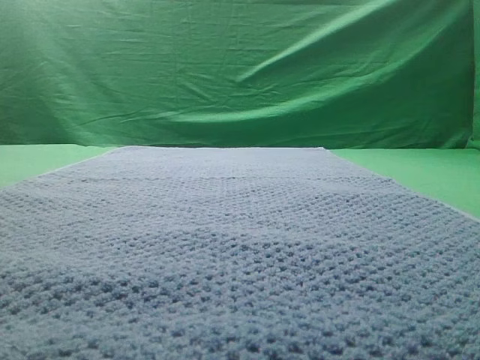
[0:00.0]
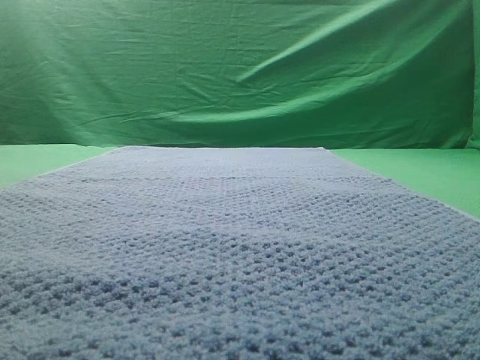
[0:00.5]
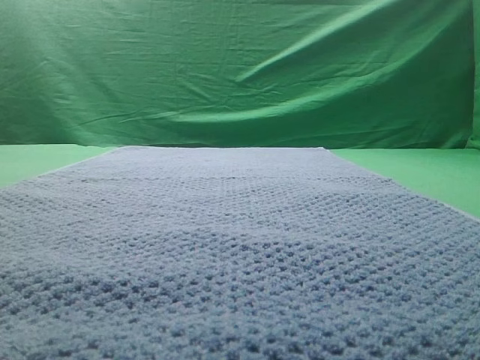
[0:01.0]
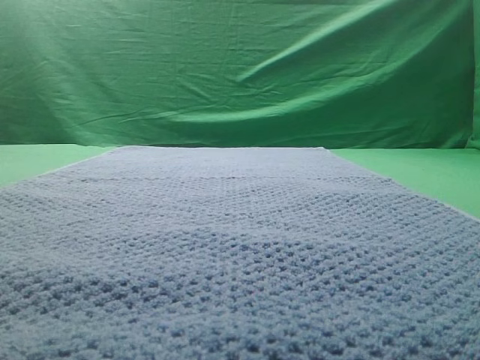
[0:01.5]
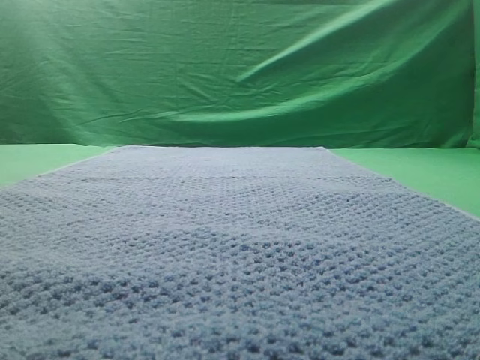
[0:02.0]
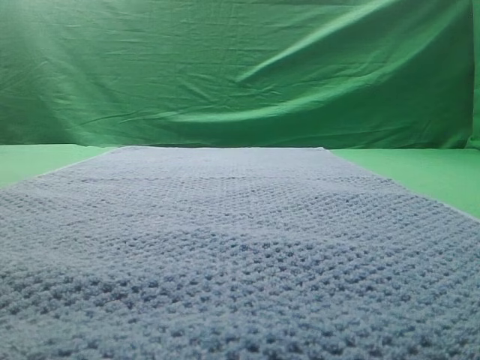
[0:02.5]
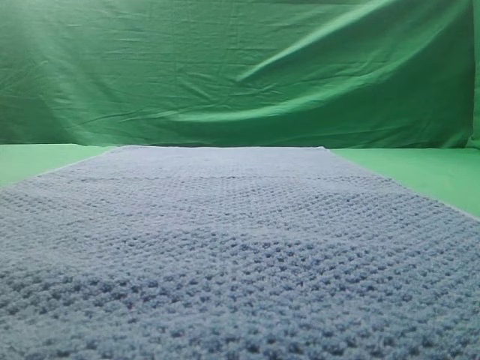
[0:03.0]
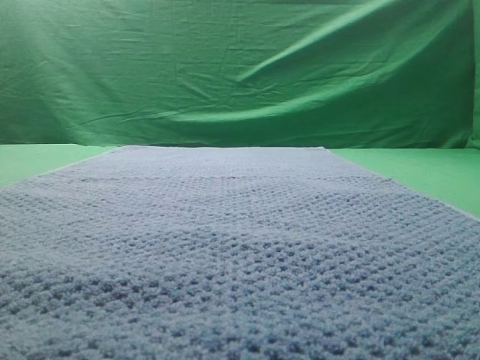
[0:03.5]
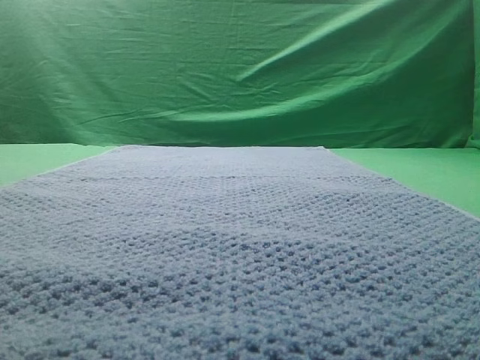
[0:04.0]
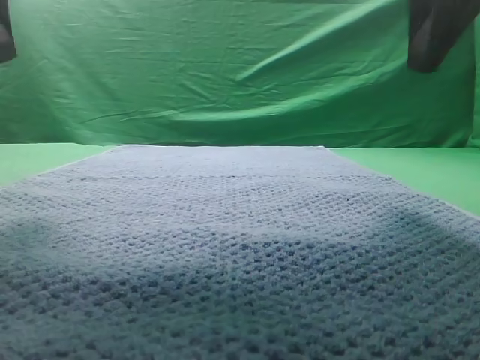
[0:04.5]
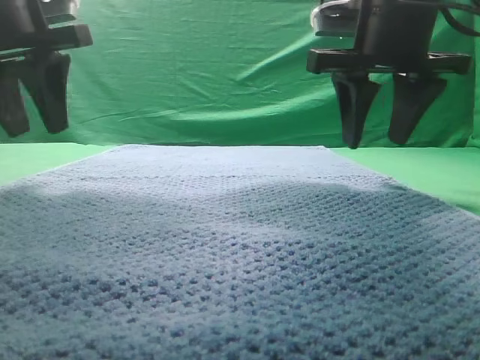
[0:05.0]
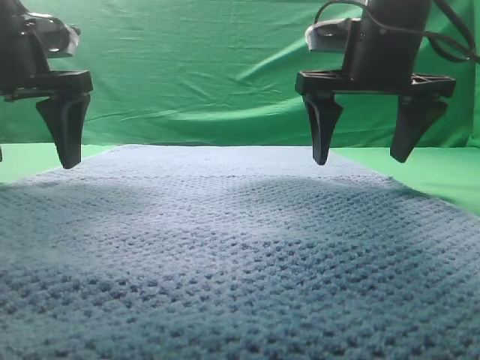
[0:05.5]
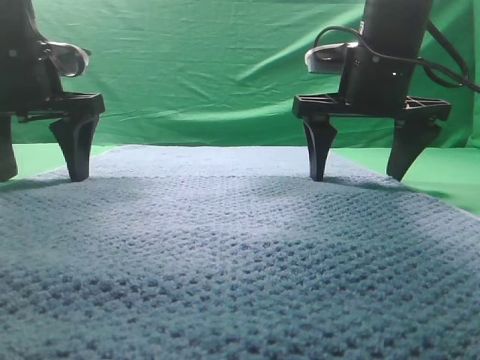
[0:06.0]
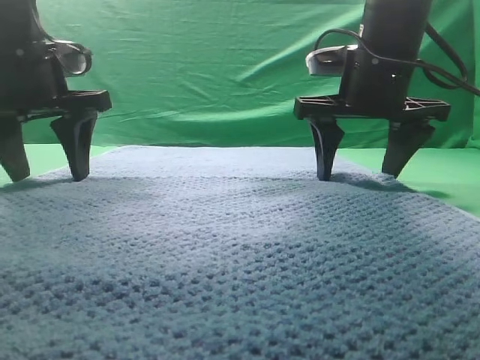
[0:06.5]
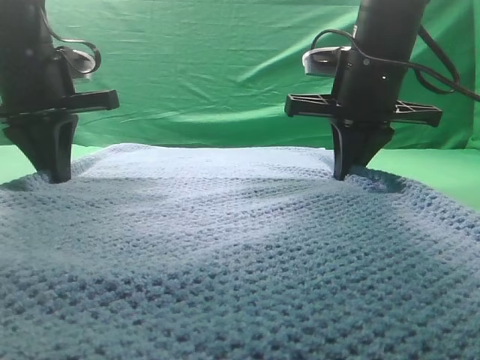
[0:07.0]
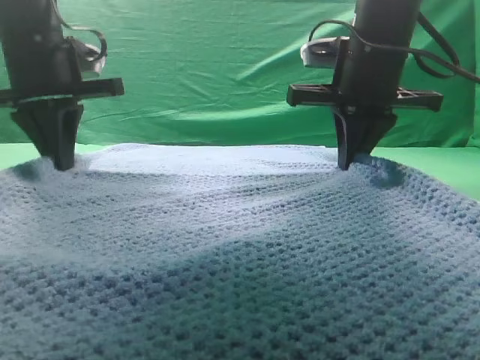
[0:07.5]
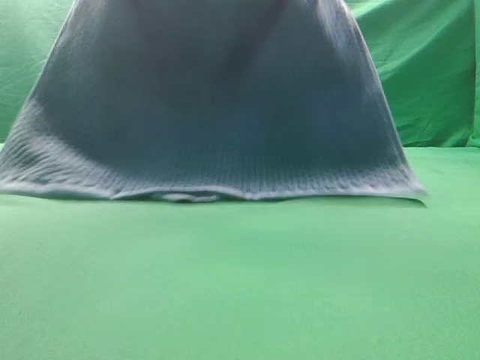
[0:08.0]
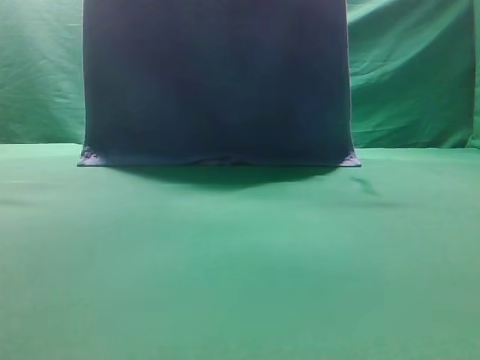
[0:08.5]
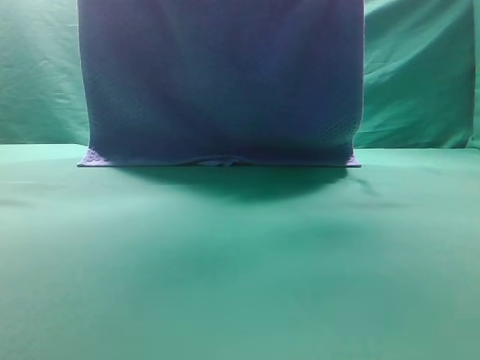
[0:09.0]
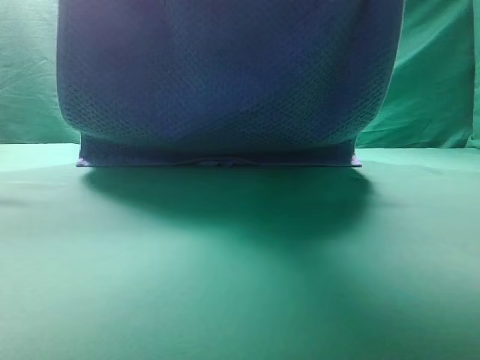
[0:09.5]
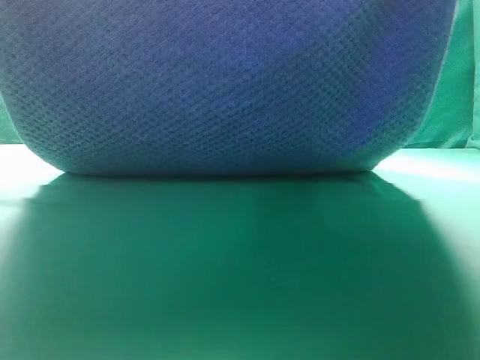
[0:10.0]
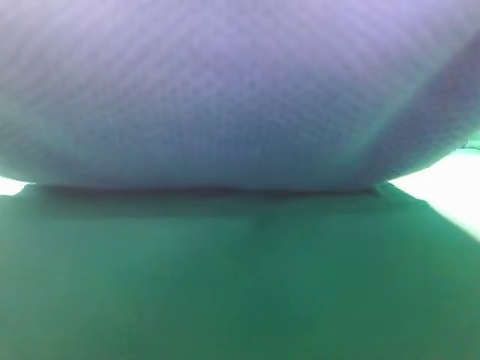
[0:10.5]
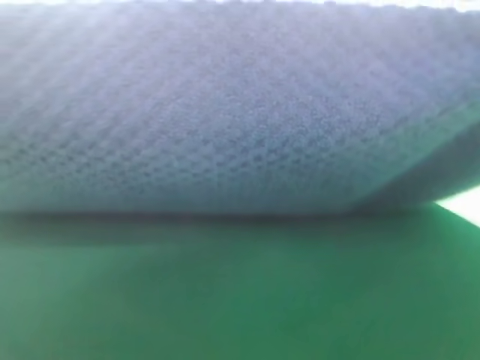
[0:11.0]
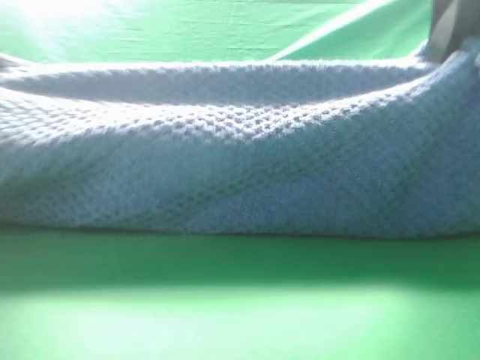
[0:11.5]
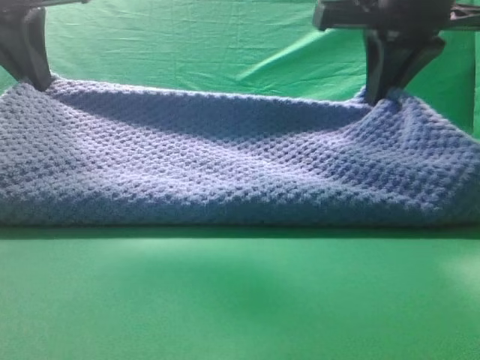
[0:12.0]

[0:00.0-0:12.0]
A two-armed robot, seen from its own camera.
Task of the whole recording: fold the towel on the table twice.
Step, 0:00.0 to 0:08.0: pick up the towel with two arm.

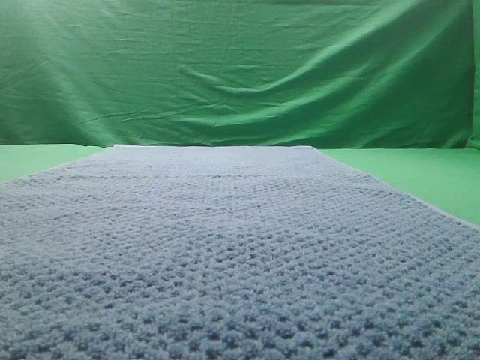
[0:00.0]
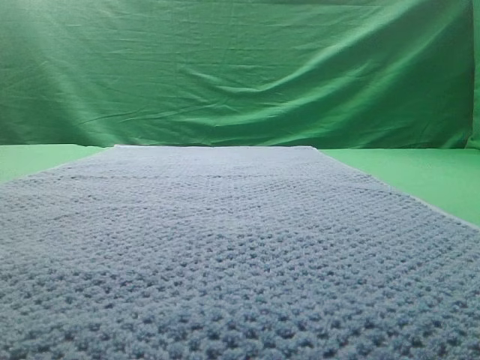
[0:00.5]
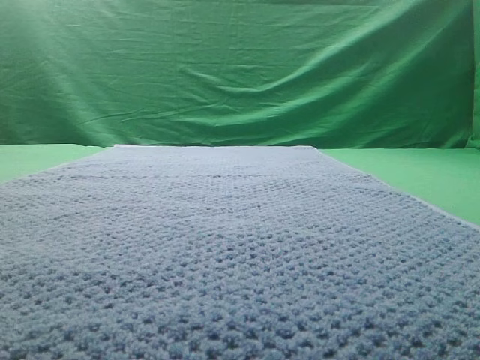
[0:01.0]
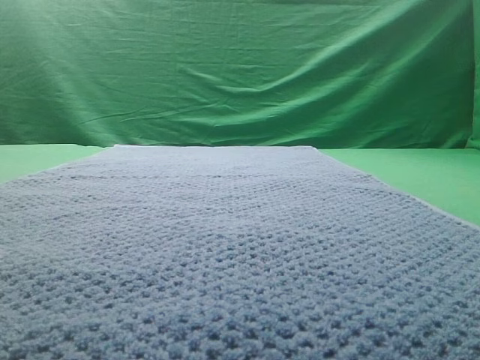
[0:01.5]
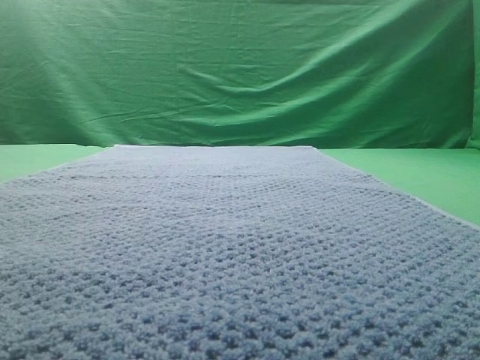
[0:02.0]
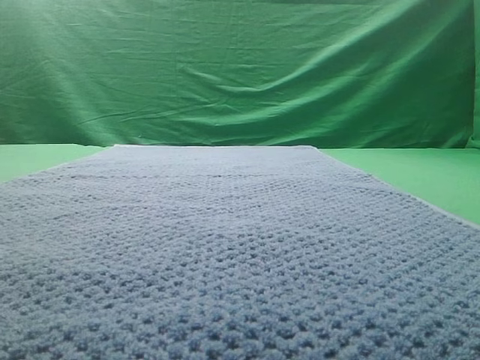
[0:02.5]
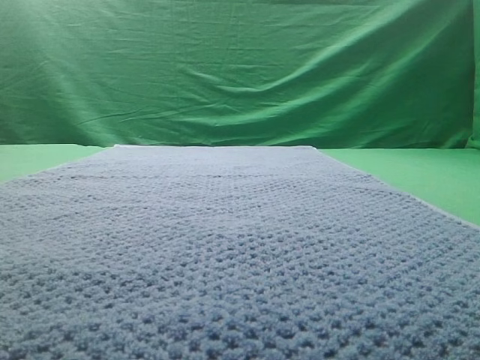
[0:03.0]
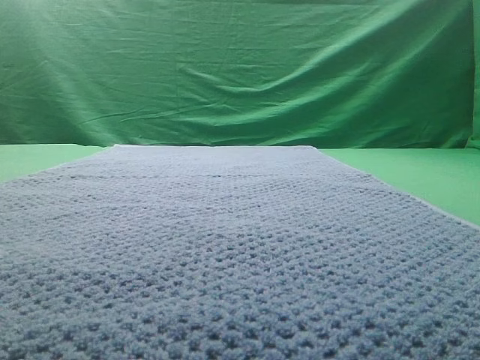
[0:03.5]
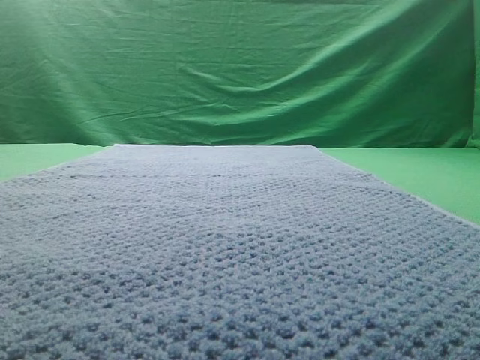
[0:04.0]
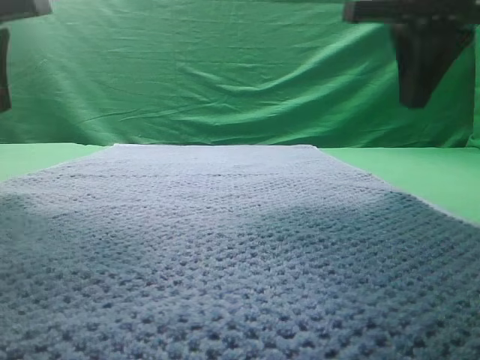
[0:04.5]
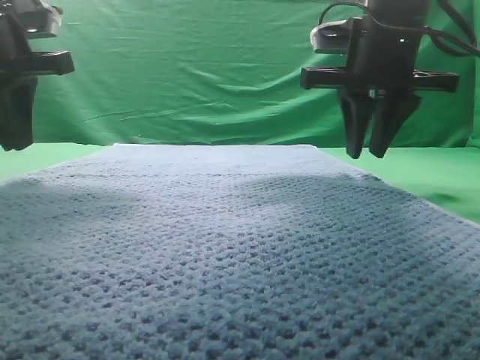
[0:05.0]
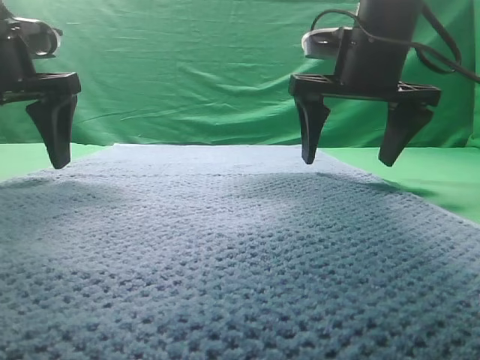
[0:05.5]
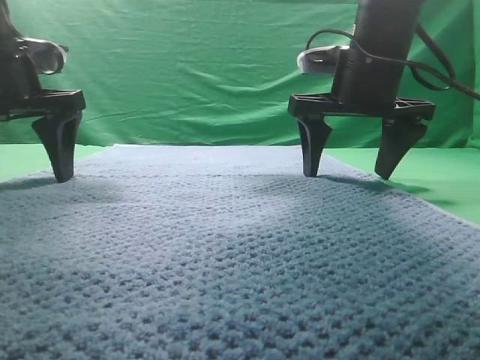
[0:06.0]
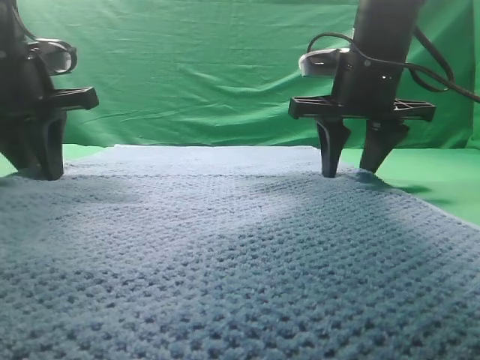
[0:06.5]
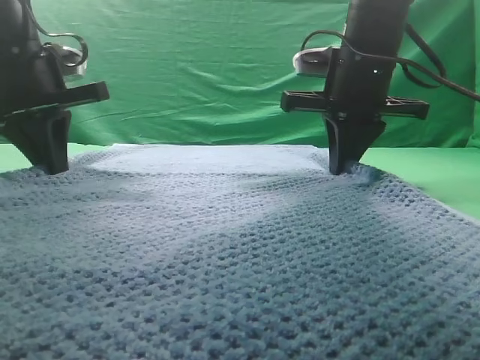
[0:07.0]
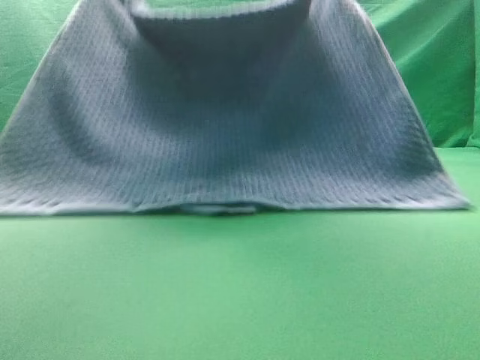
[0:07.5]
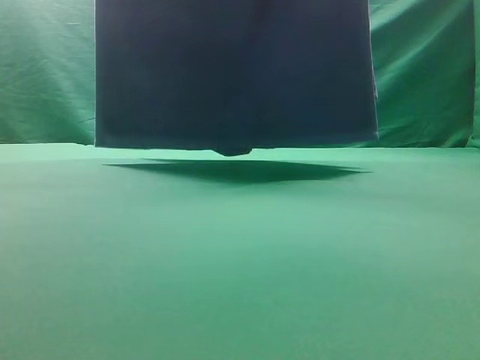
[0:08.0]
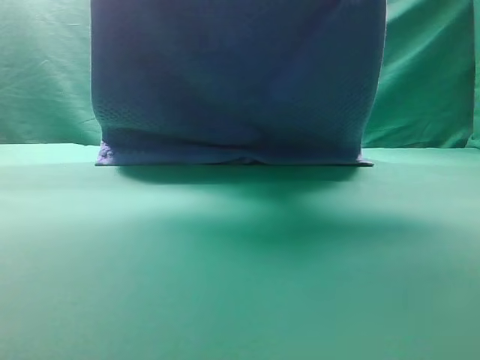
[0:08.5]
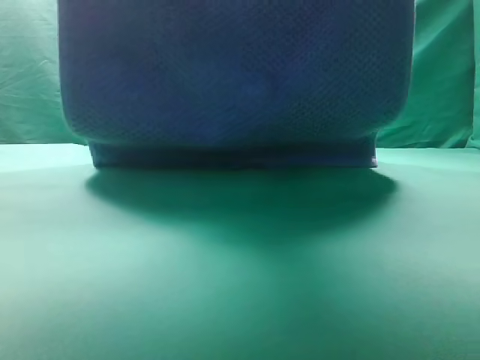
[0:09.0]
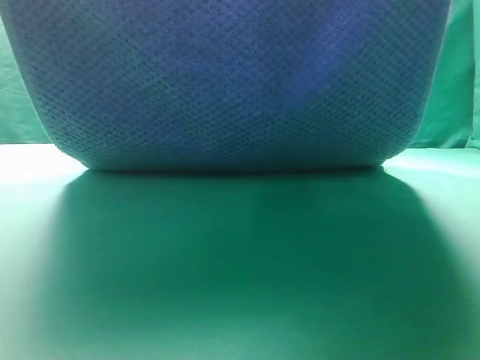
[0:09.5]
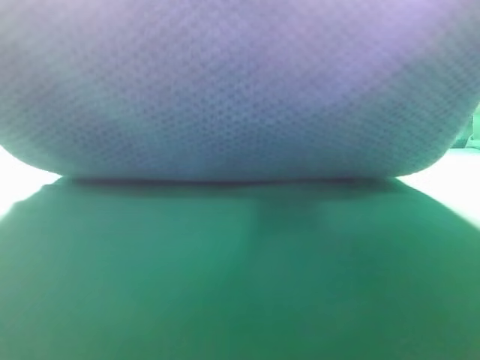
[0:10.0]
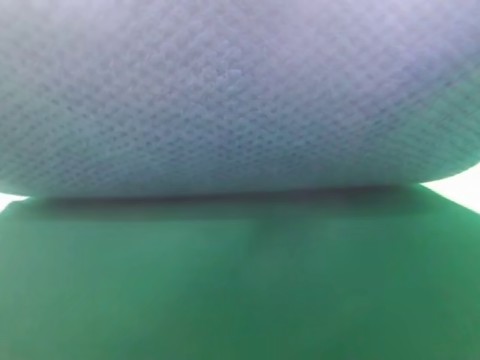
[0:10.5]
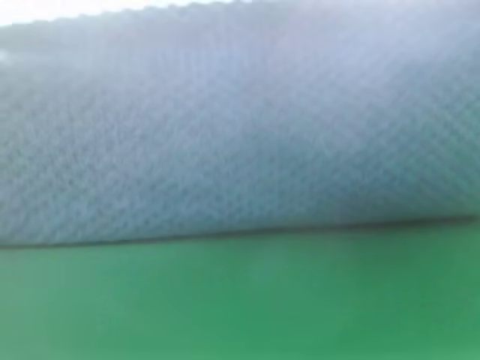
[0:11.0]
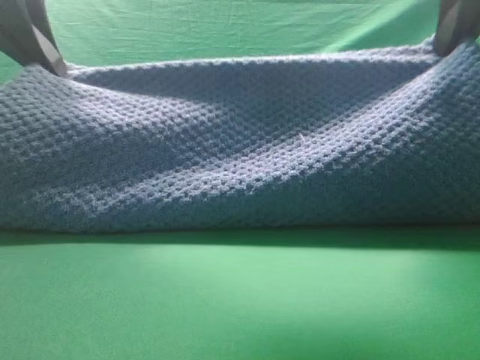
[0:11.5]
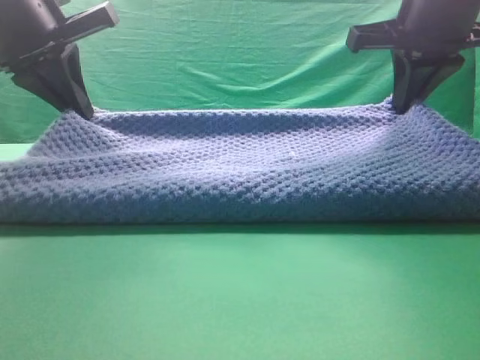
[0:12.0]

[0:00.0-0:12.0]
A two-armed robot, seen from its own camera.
Task of the whole recording: fold the towel on the table twice.
Step, 0:00.0 to 0:07.5: pick up the towel with two arm.

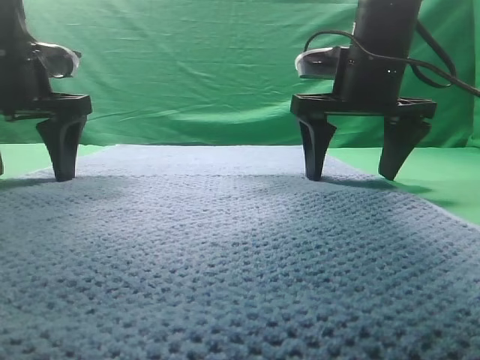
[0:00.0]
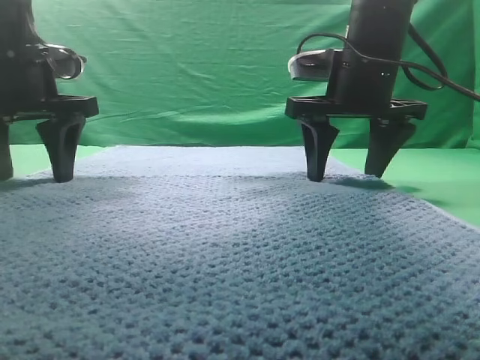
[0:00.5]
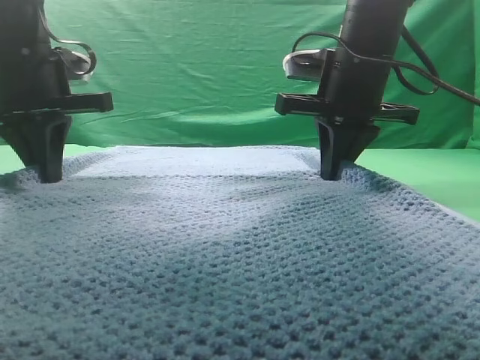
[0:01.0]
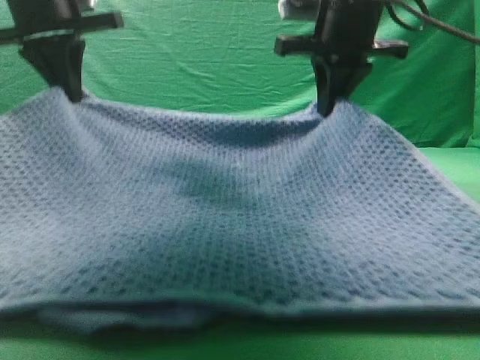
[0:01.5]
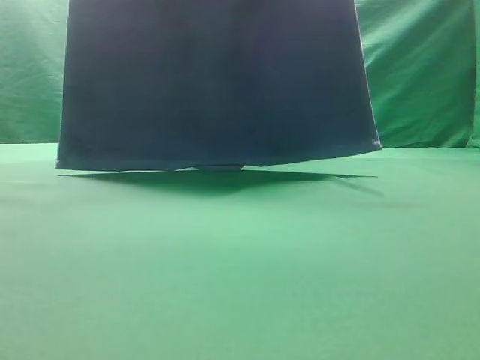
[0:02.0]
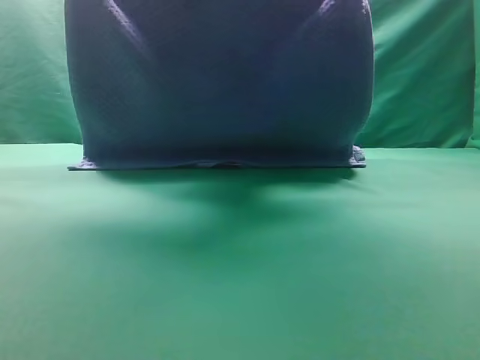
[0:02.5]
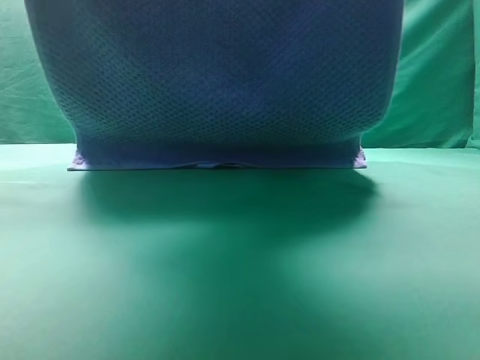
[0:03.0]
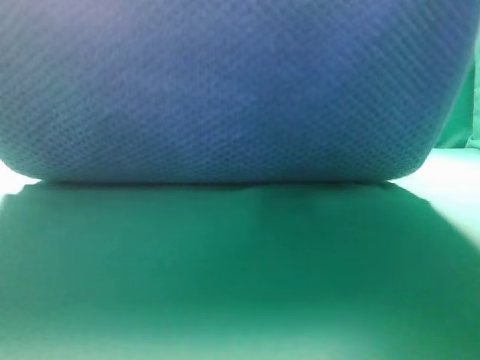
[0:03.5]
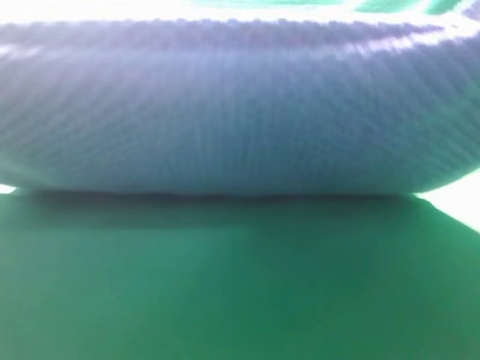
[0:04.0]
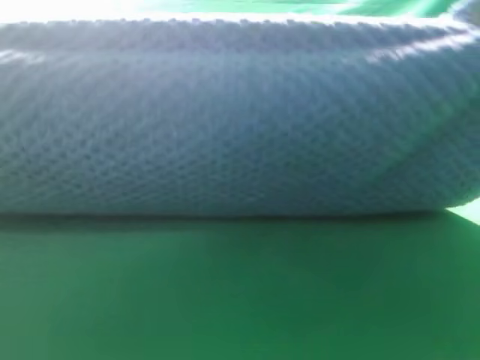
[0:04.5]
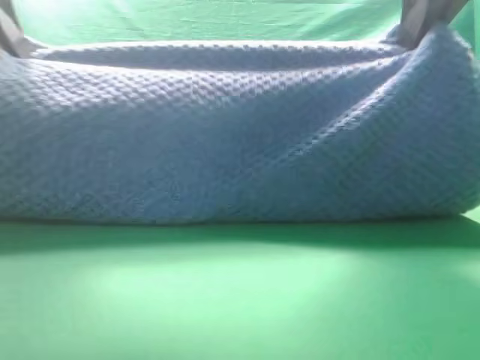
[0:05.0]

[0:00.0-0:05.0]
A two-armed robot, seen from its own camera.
Task of the whole recording: fold the towel on the table twice.
Step, 0:00.0 to 0:02.0: pick up the towel with two arm.
